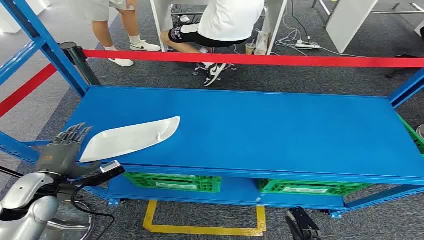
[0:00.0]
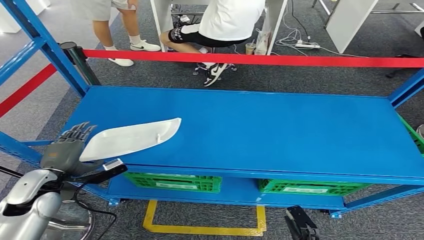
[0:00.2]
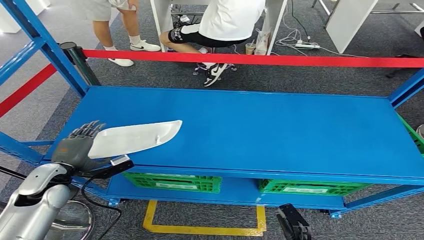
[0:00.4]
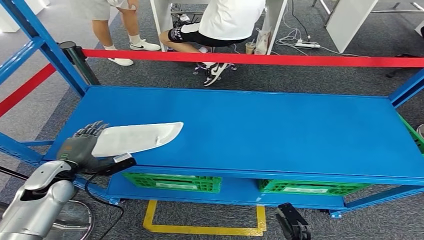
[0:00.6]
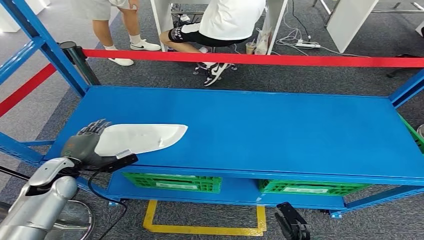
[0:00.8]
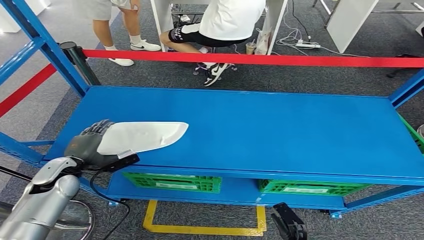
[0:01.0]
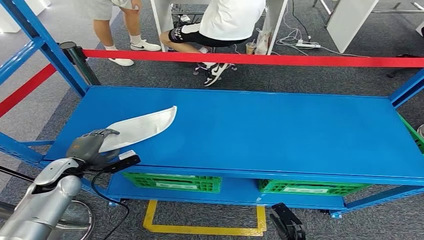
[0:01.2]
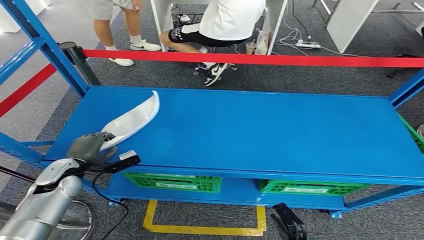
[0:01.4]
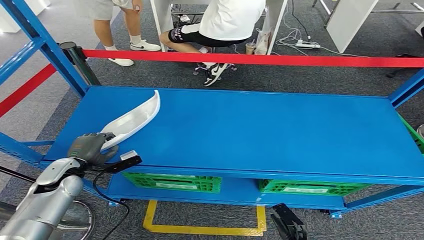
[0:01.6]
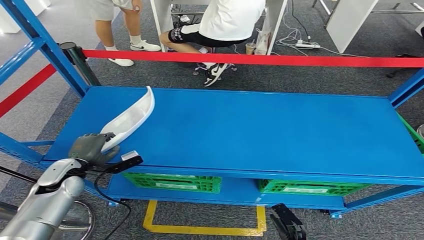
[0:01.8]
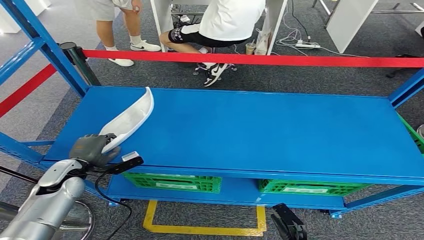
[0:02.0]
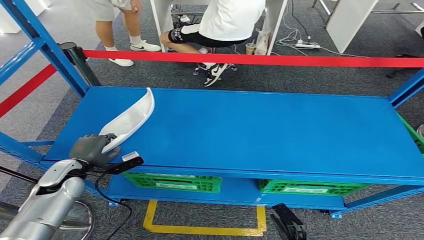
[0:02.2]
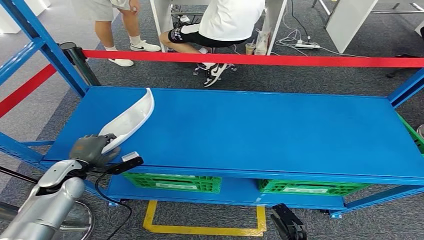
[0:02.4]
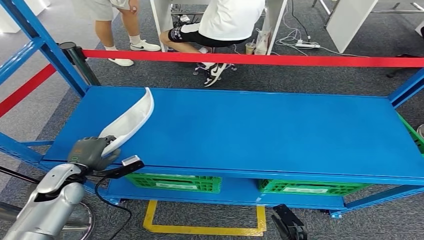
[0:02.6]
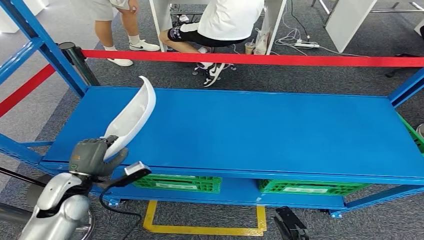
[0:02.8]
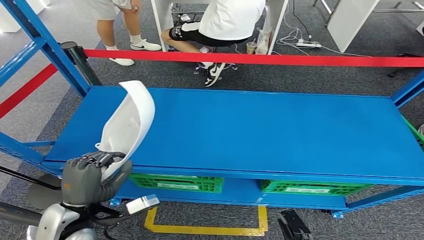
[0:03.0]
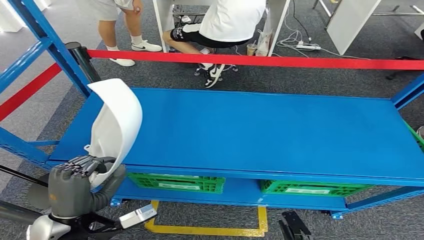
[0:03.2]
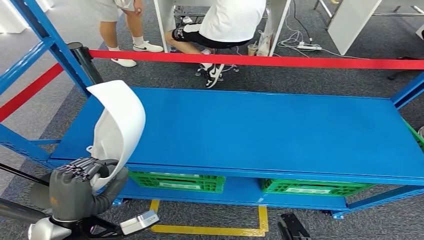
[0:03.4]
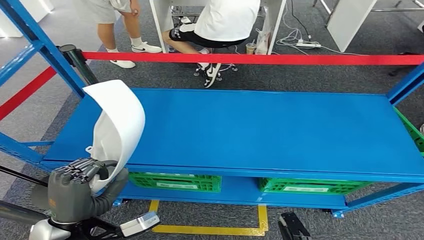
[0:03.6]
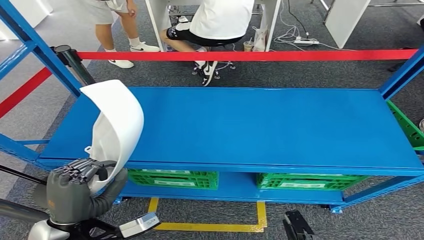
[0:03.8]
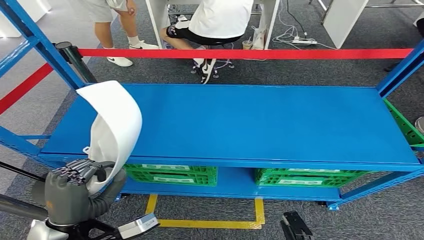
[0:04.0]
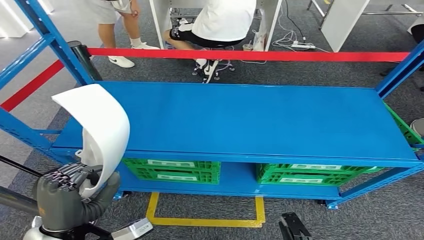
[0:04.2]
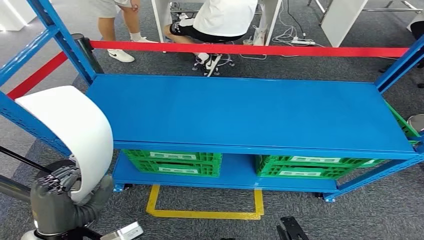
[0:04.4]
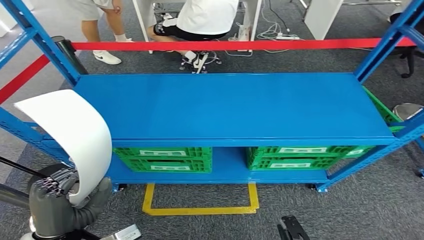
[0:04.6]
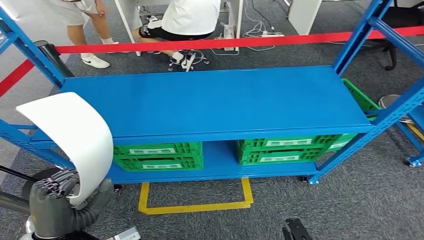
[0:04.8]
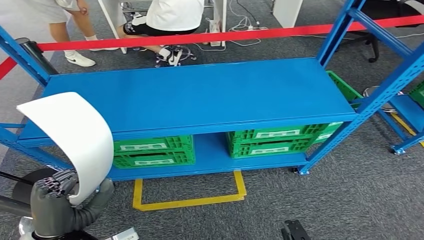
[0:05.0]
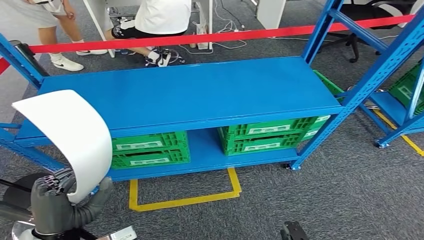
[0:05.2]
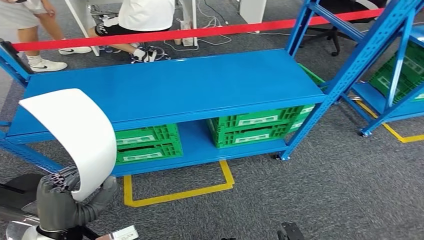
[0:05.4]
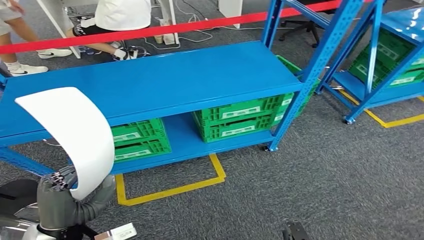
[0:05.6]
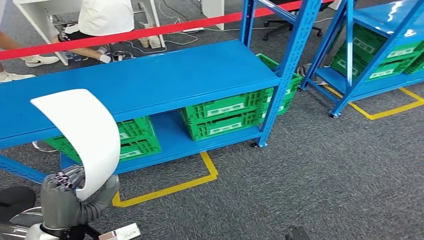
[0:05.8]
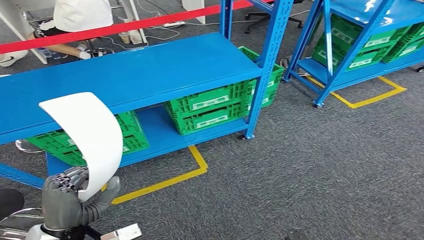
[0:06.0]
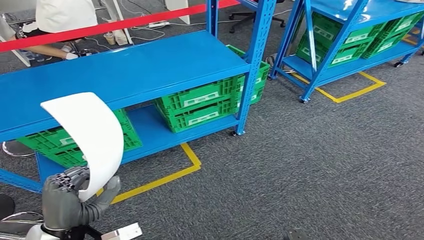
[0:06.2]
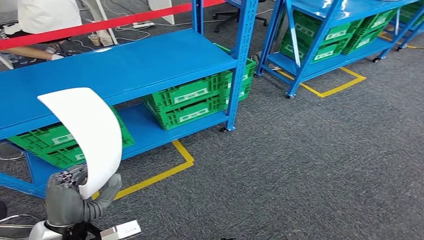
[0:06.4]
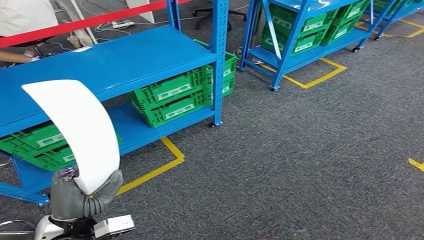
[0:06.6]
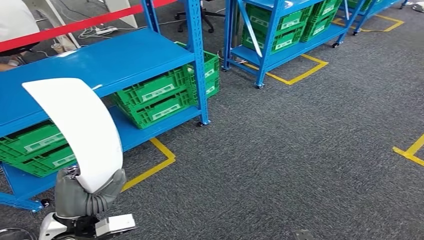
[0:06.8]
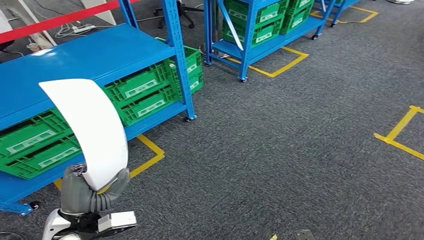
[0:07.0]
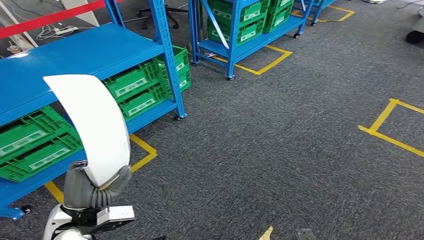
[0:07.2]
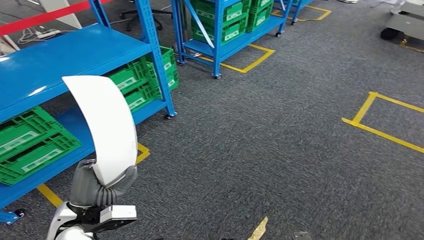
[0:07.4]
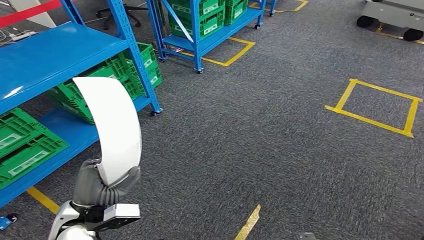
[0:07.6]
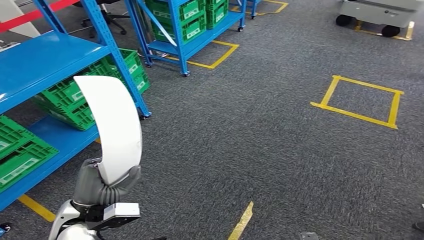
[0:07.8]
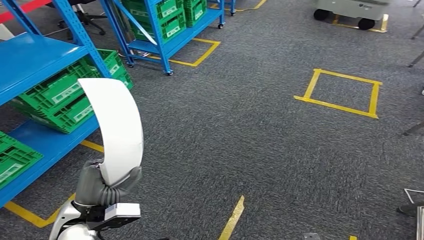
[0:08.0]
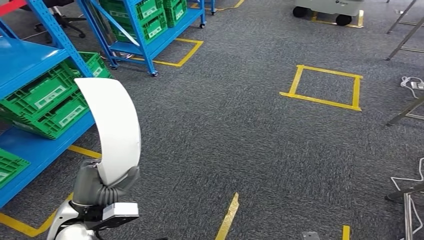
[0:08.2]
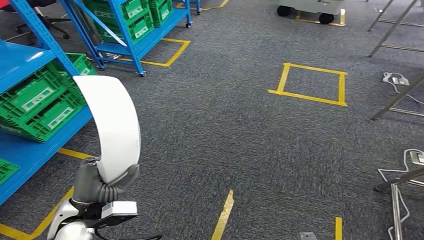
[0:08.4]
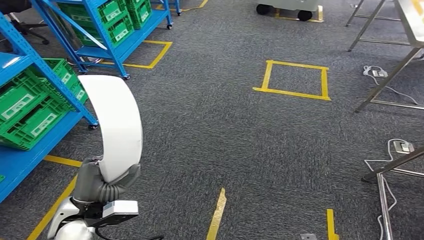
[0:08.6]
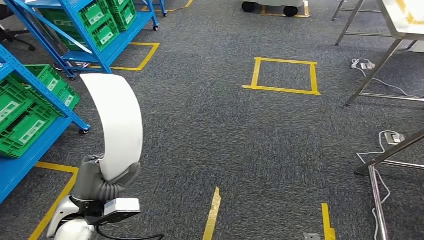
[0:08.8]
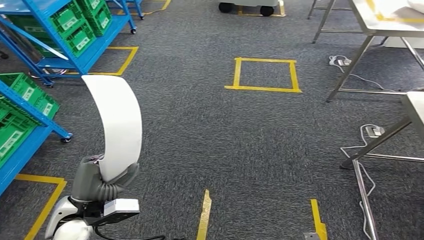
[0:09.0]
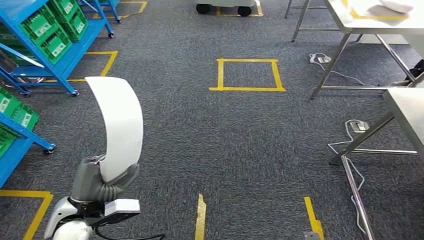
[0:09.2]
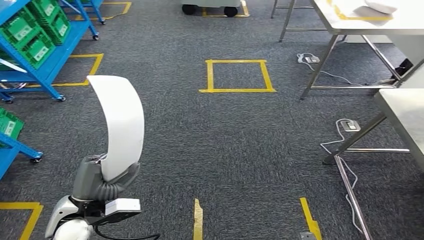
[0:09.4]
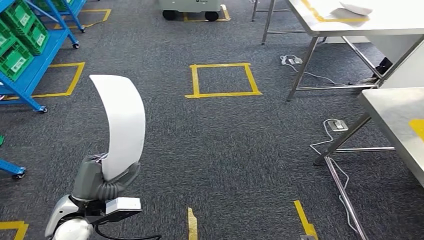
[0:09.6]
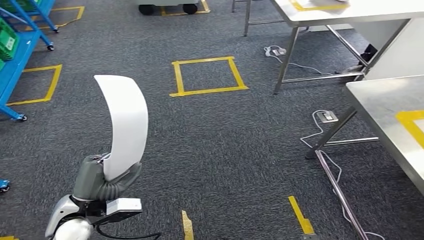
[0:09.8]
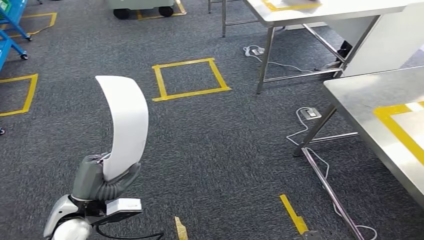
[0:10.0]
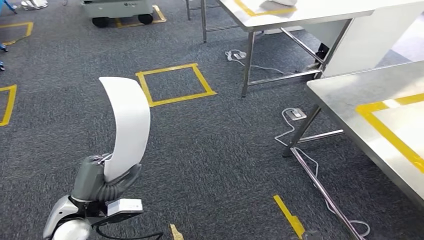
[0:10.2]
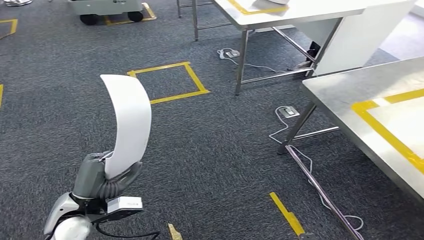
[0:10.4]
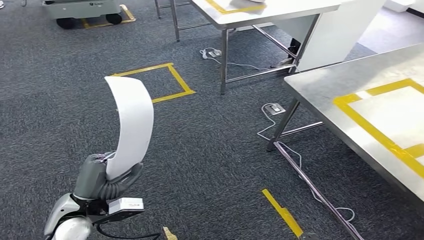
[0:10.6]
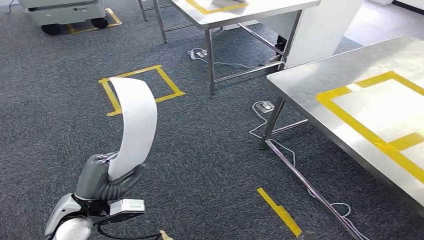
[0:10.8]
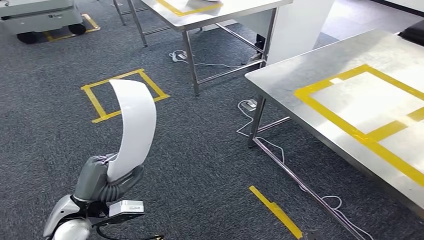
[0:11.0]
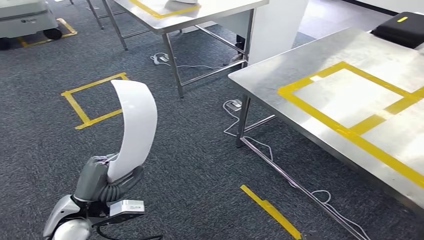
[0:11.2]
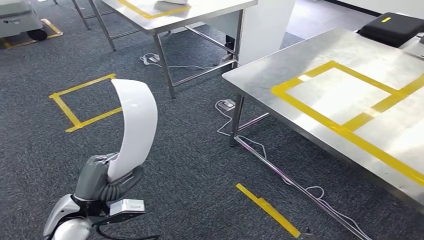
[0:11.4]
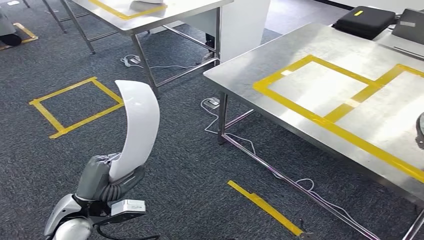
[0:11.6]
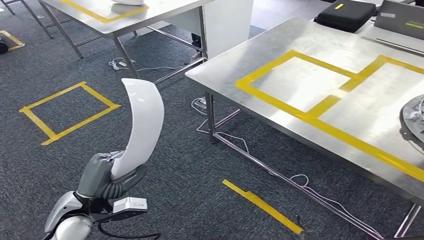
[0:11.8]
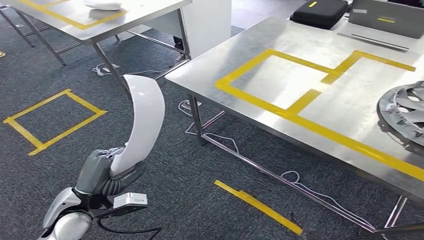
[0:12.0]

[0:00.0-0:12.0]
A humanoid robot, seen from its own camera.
Step, 0:00.0 to 0:03.4: Pick up the small component from the shelf.
0:01.6 to 0:03.0: The left hand is displaced backward and to the right by roughly 15 cm.

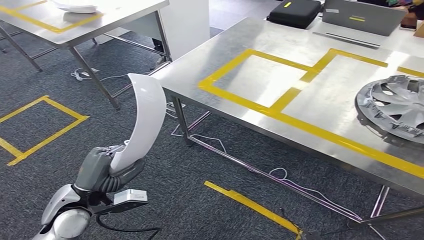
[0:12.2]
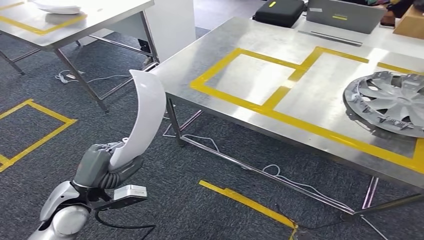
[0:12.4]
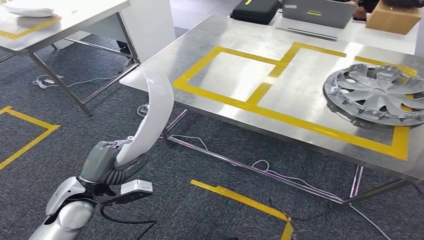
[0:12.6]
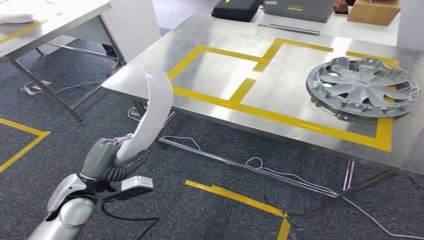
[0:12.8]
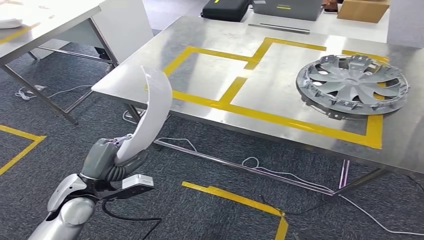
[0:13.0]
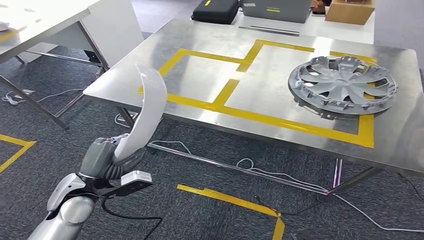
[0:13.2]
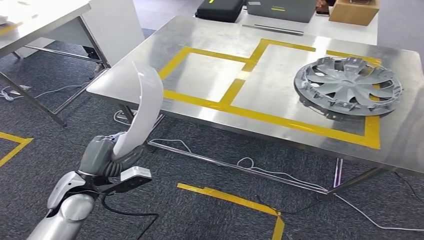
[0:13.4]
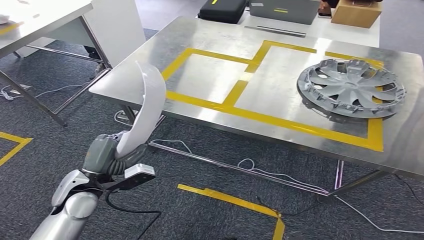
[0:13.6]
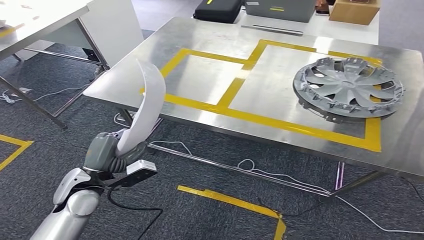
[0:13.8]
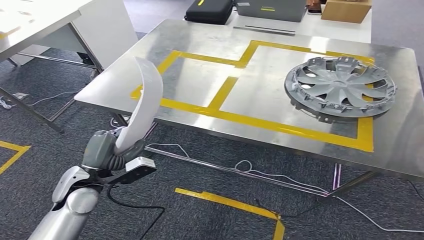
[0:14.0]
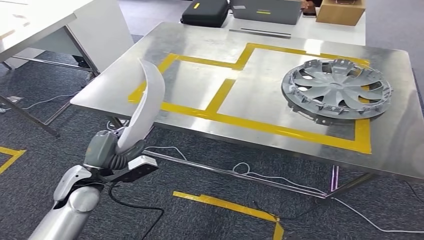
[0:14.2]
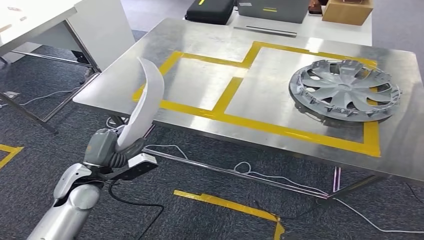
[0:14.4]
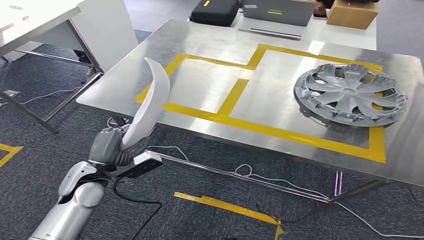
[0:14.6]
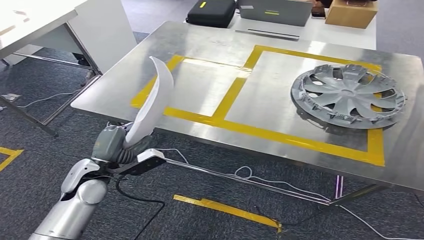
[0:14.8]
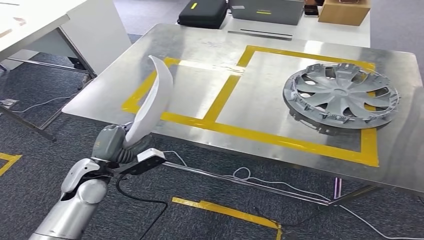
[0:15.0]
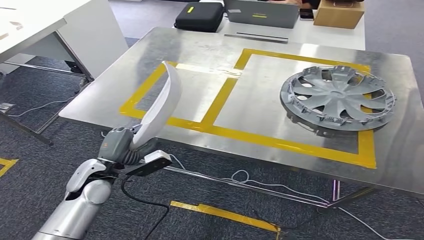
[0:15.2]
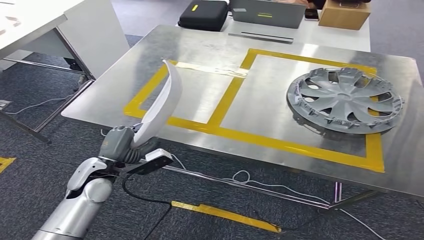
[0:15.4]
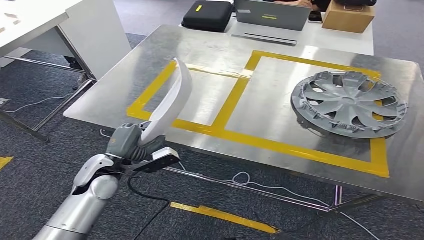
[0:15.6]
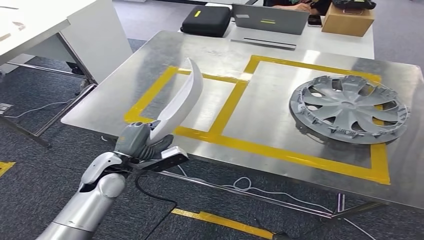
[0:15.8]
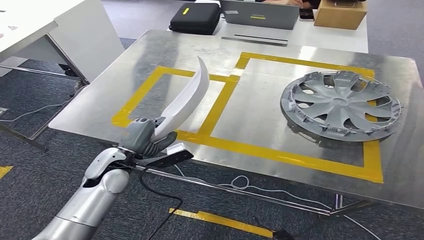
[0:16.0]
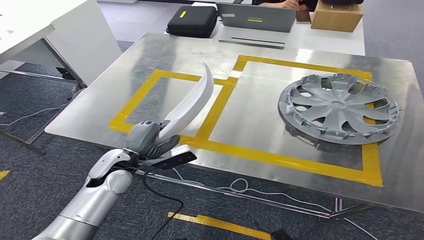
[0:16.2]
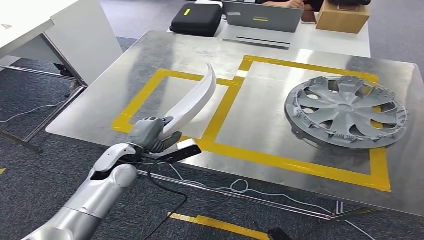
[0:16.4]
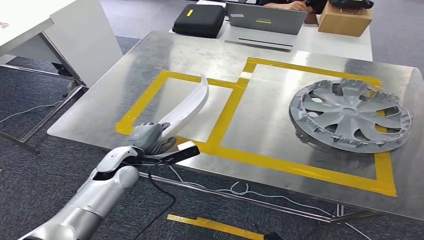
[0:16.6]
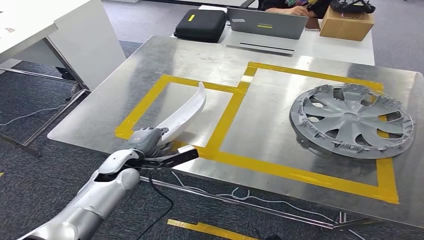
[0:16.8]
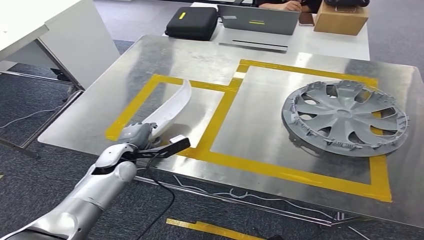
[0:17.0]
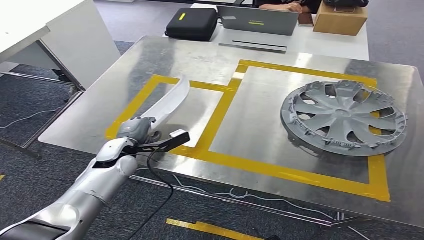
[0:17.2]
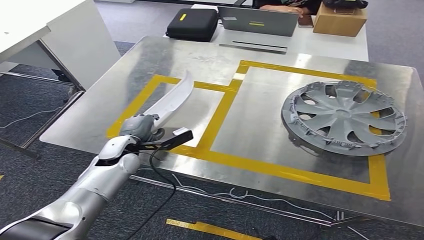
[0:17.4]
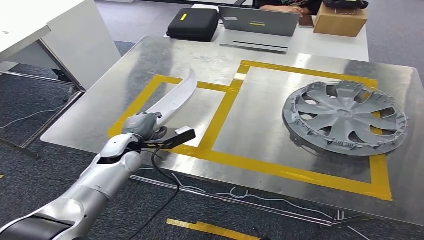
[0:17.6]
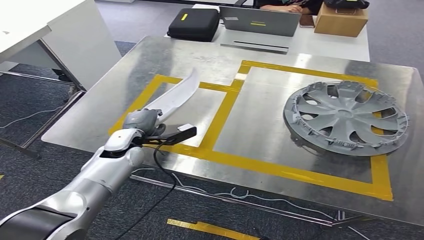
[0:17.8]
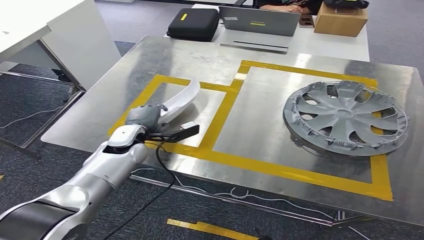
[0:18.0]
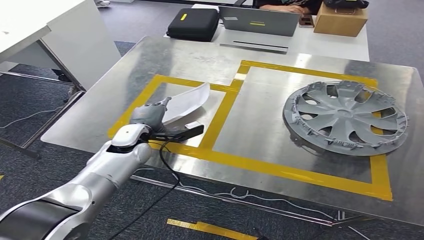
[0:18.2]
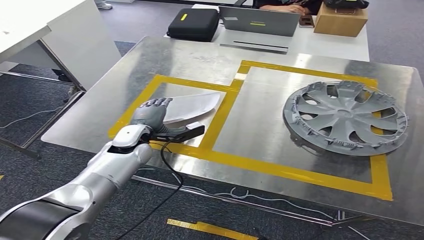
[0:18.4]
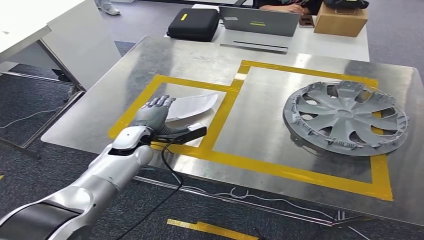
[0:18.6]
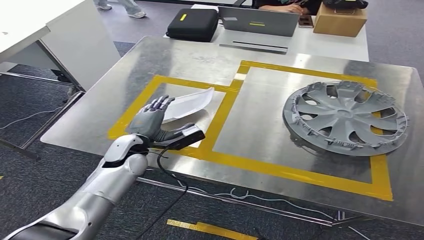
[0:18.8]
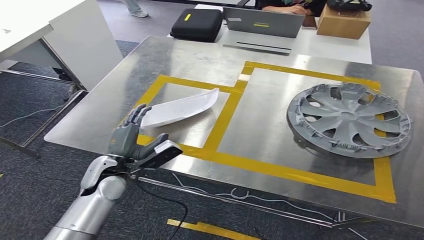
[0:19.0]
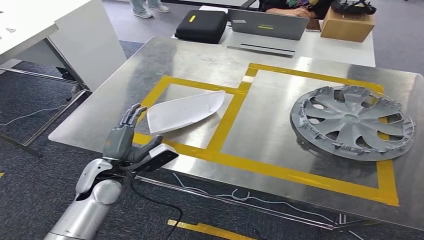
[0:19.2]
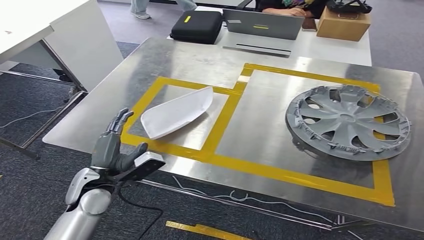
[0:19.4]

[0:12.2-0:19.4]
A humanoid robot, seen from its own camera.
Step, 0:12.2 to 0:14.4: Move the small component to the workbench.
